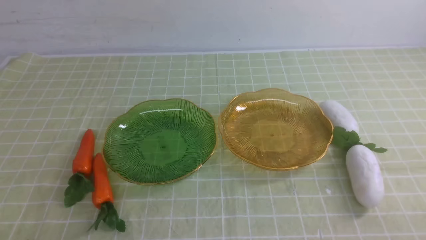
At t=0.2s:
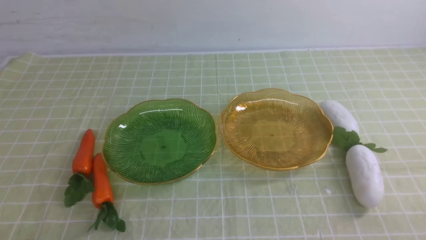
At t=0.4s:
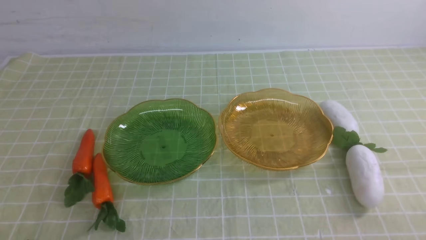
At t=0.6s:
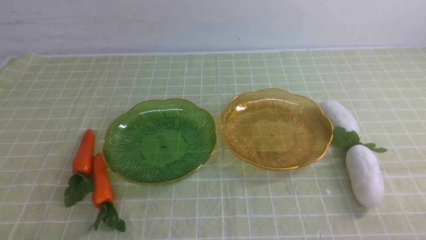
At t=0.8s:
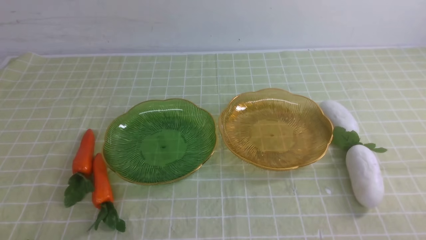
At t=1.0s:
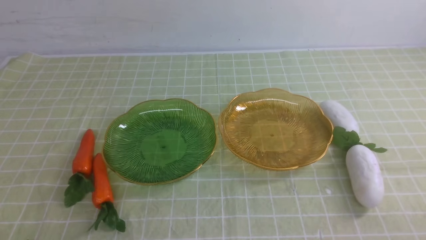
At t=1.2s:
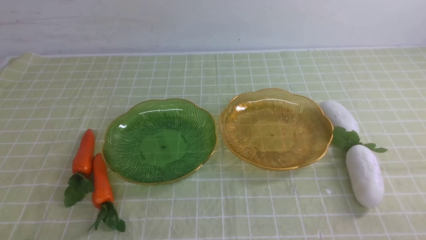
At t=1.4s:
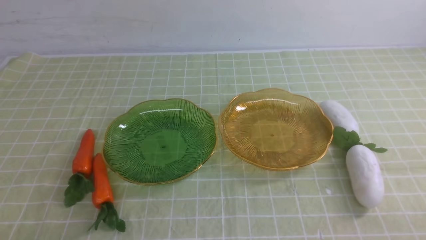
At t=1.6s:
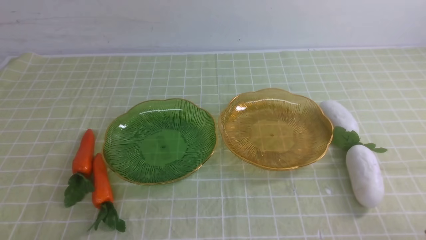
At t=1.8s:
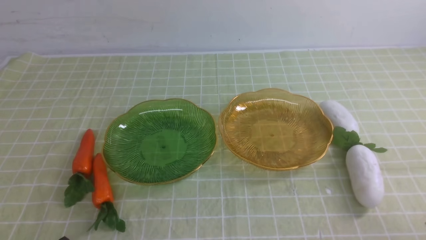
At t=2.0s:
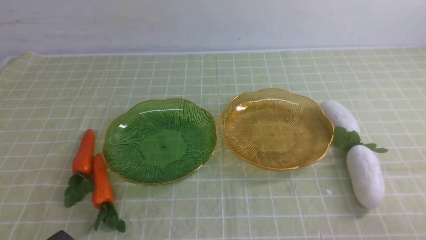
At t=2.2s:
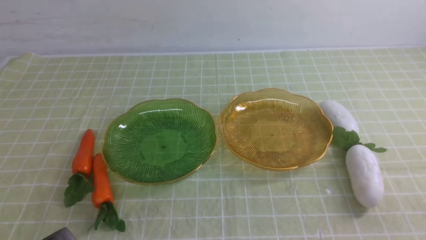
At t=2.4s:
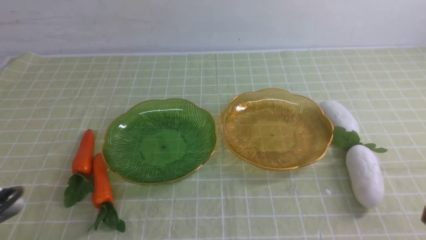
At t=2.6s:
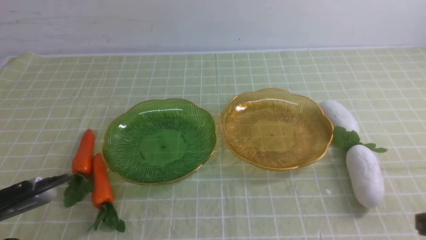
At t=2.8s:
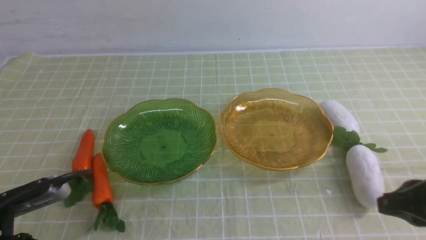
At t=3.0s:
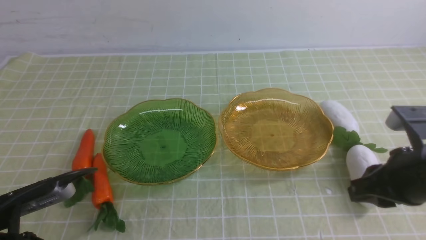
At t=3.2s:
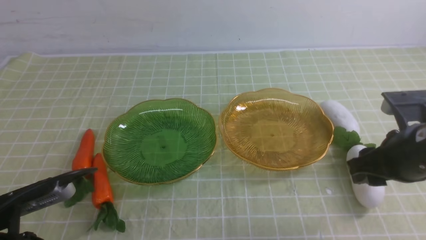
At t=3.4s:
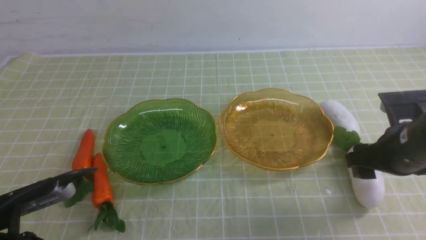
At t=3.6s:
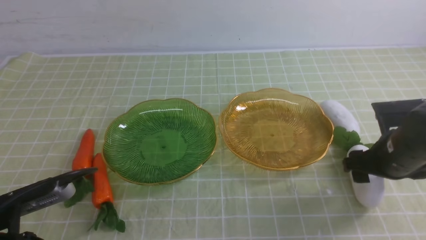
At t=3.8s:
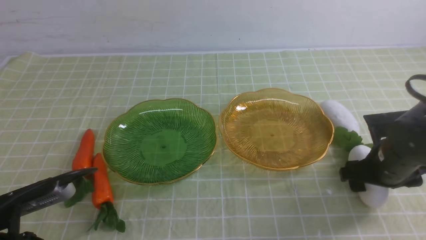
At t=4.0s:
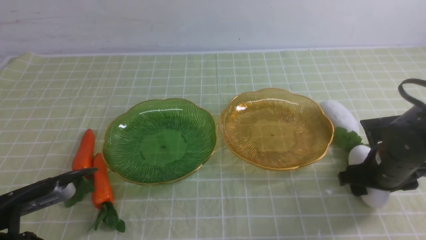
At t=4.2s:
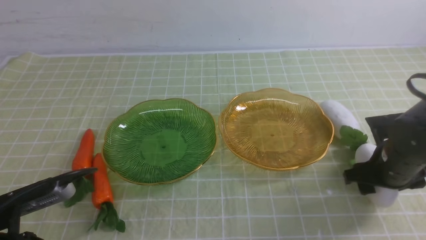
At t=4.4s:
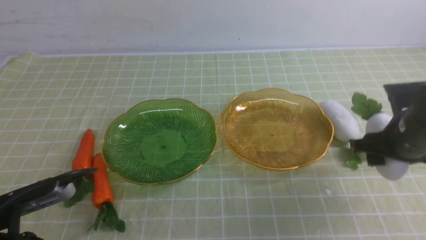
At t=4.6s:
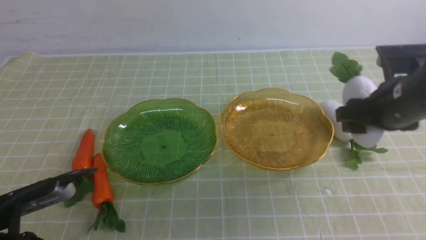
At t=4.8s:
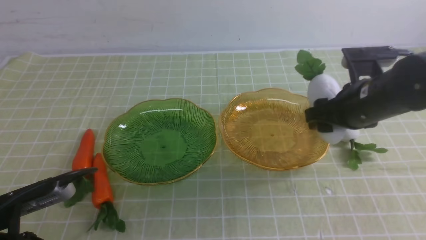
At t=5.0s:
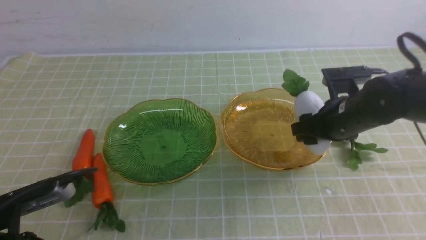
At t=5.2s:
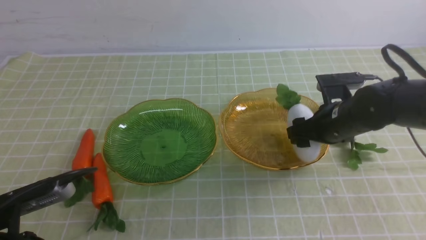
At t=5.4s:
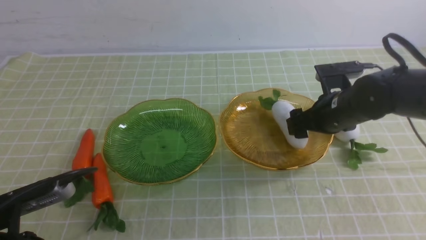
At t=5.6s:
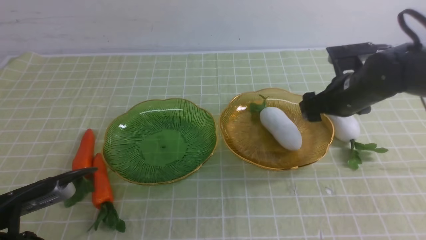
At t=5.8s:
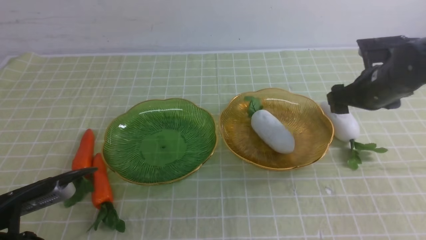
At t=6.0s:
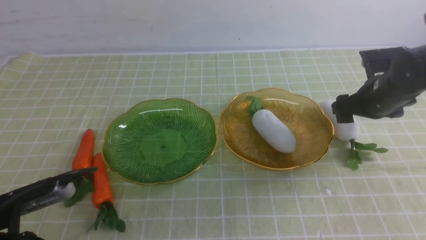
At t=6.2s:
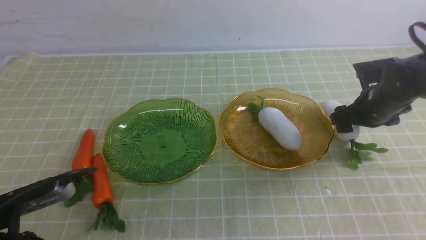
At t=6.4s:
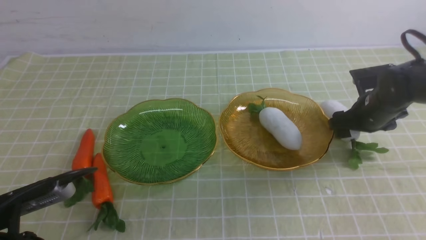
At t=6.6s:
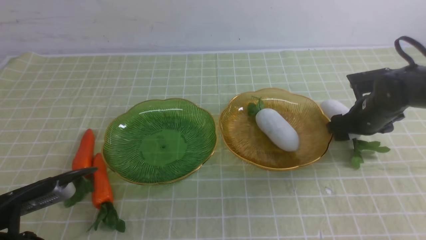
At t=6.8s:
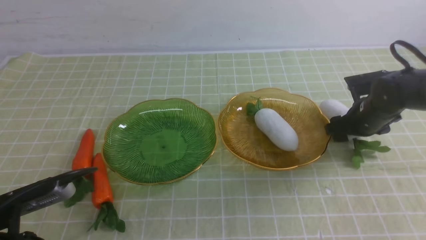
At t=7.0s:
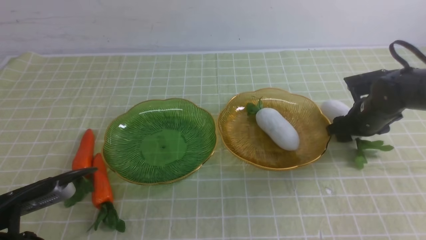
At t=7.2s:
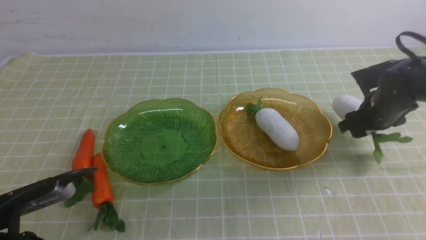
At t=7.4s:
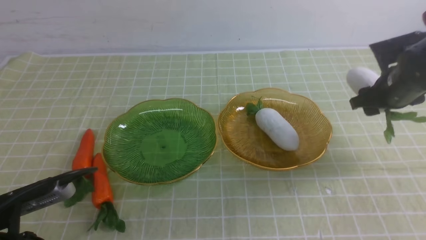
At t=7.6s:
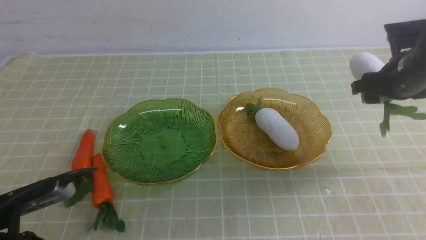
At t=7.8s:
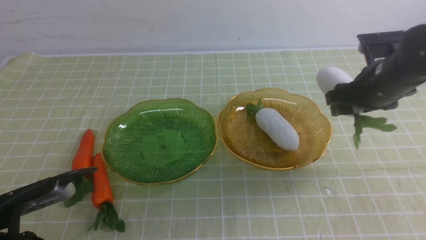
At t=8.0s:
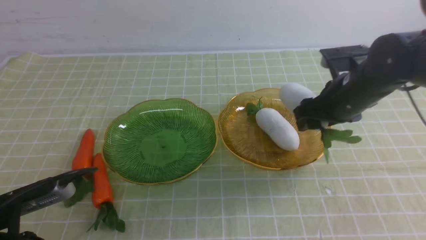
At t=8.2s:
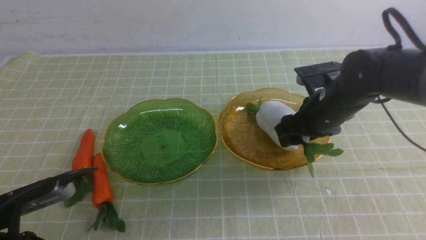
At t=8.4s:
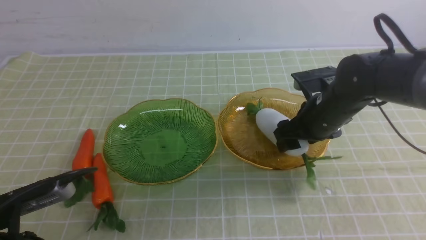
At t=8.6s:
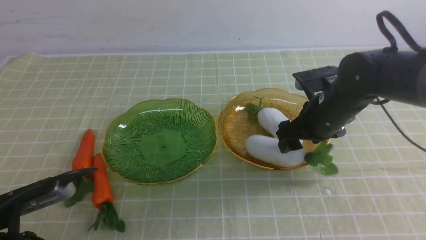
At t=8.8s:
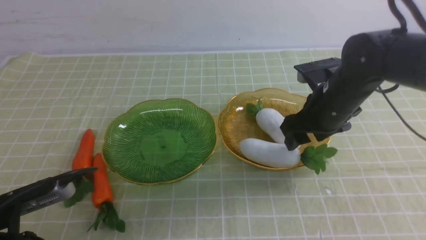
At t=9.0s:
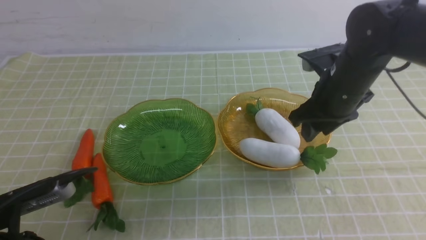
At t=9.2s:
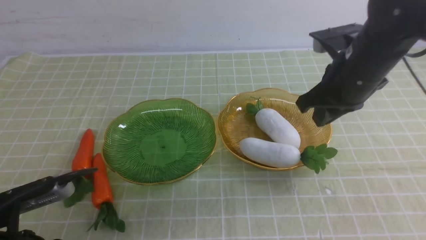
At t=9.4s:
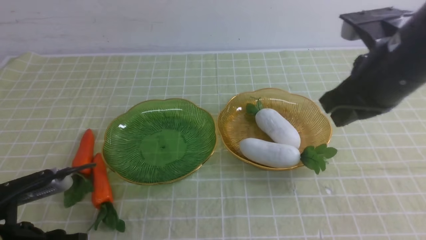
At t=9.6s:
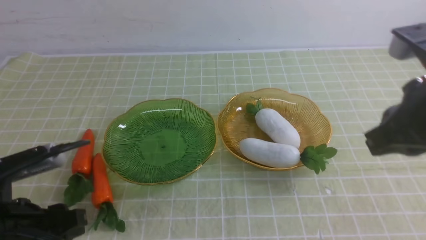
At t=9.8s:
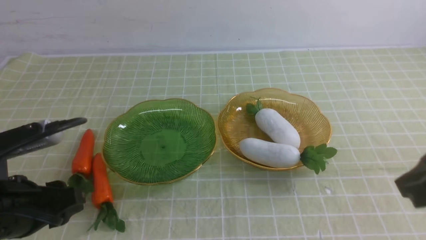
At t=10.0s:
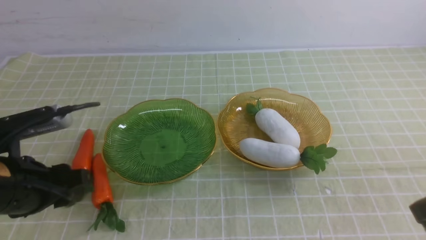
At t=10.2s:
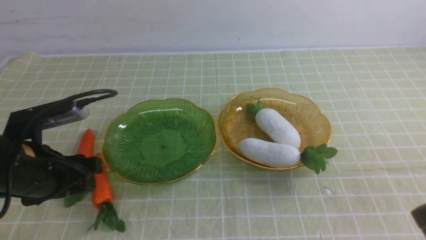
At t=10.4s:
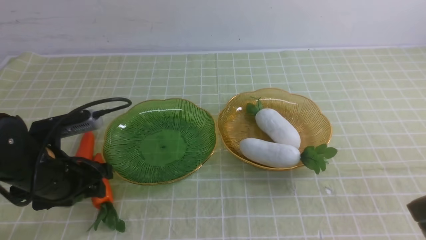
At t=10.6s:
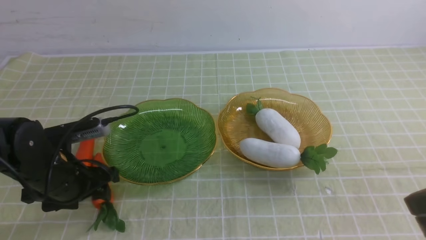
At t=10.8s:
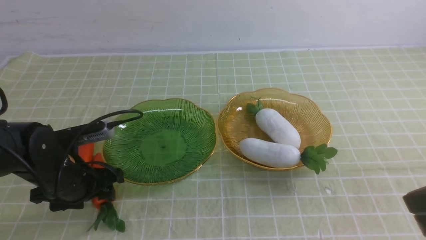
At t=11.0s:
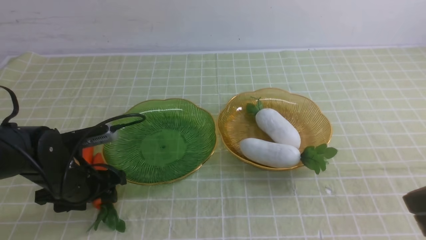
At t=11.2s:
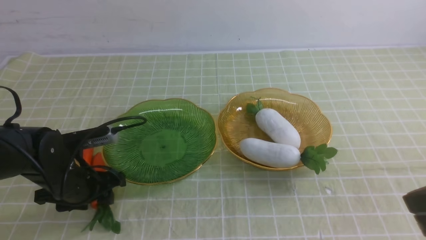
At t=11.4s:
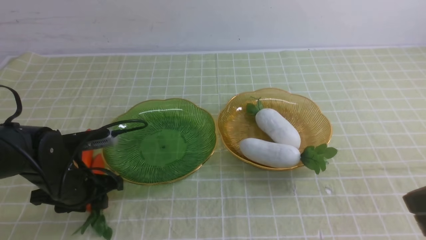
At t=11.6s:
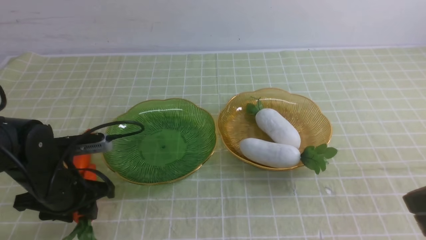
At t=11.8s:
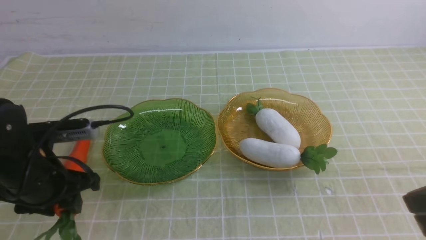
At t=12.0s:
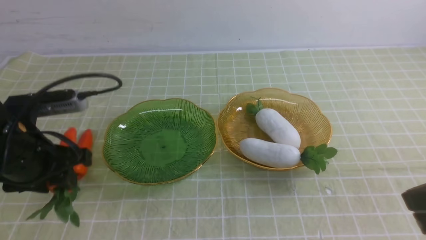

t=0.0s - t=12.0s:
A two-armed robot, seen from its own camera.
Step, t=0.0s - t=5.4s: use the right arm to grab a radish and put it into the right plate.
Step, t=5.8s - t=8.4s: use the right arm to grab a radish and put it into the right plate.
t=1.6s - t=3.0s: The left gripper shifts roughly 5 cm forward. Meanwhile the right gripper goes roughly 15 cm forward and upward.
t=3.0s - t=4.4s: The right gripper goes roughly 10 cm forward, travels downward and back again, some 10 cm each way, and opens.
t=4.4s - t=6.0s: The right gripper travels forward by some 10 cm.
t=6.0s - t=7.6s: The right gripper heads upward, covering approximately 5 cm.
t=7.6s - t=9.0s: The right gripper moves to the left, approximately 10 cm.
t=9.0s - t=10.4s: The left gripper moves forward, some 10 cm, and opens up. The right gripper heads backward, covering approximately 20 cm, and closes its fingers.
t=10.4s - t=12.0s: The left gripper moves upward, roughly 5 cm.

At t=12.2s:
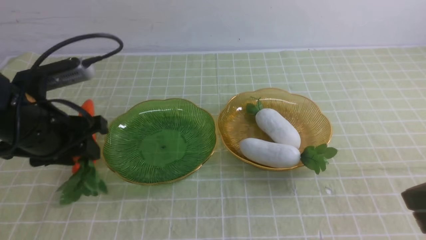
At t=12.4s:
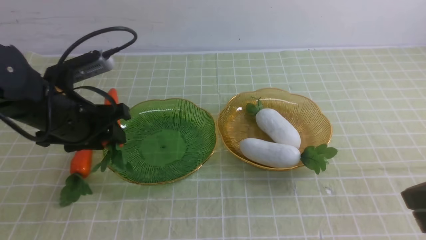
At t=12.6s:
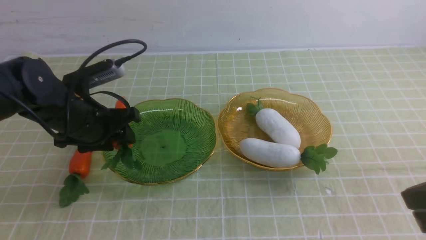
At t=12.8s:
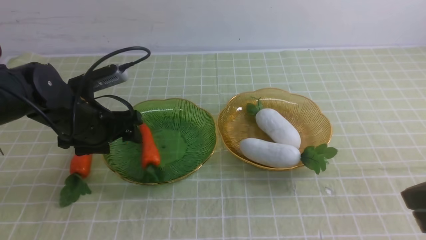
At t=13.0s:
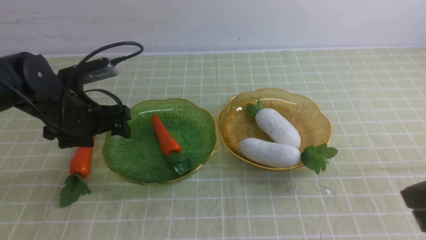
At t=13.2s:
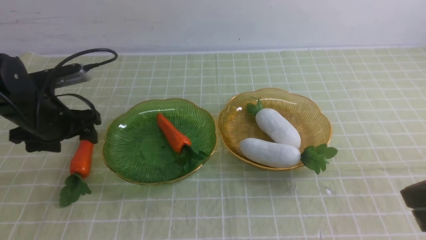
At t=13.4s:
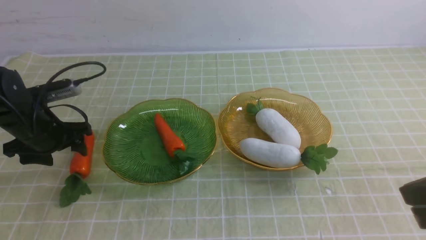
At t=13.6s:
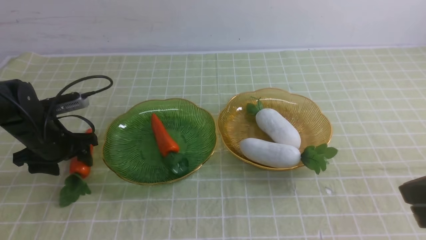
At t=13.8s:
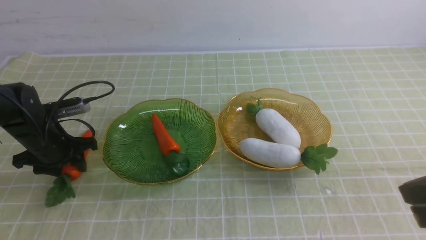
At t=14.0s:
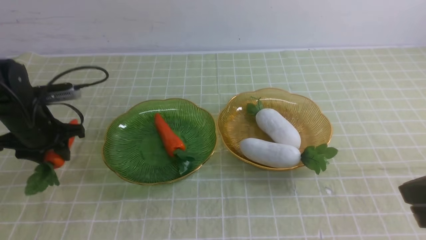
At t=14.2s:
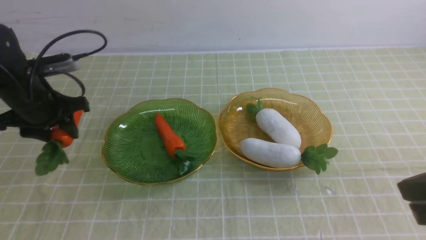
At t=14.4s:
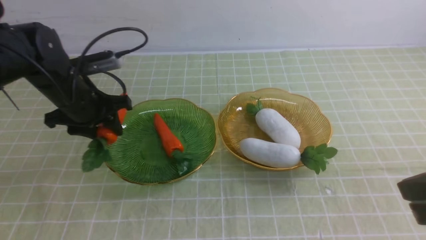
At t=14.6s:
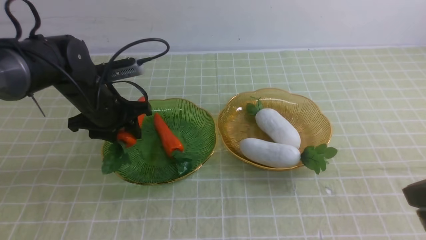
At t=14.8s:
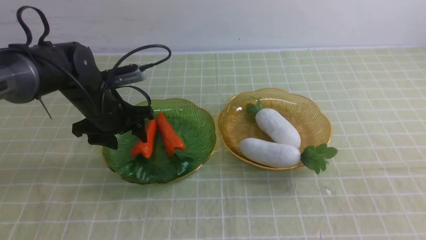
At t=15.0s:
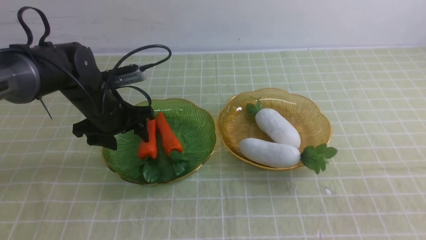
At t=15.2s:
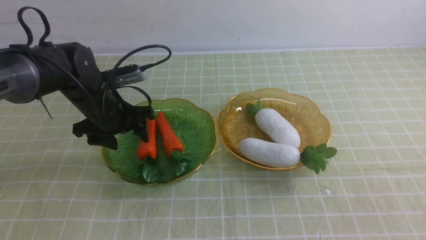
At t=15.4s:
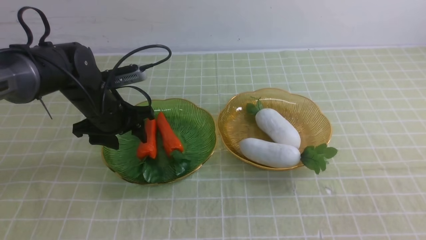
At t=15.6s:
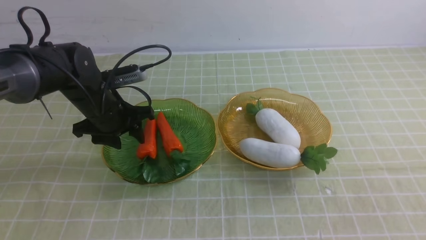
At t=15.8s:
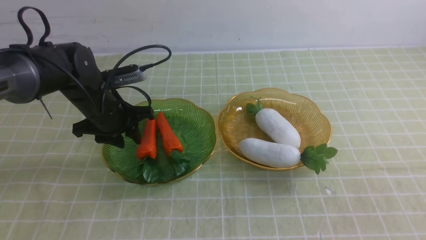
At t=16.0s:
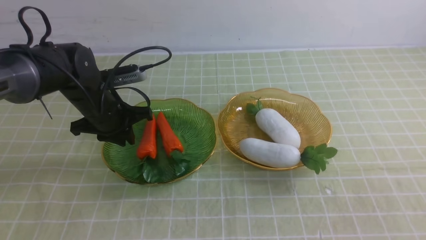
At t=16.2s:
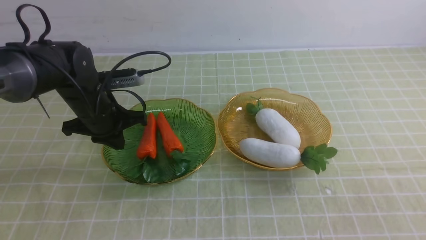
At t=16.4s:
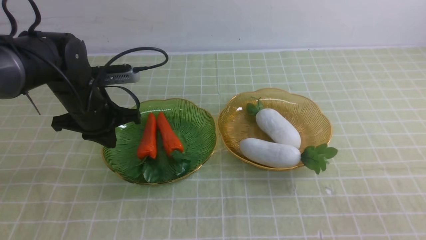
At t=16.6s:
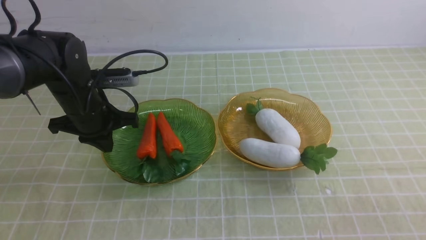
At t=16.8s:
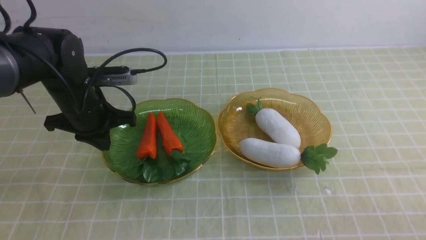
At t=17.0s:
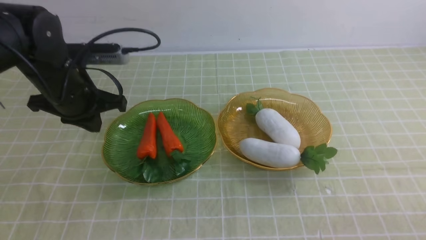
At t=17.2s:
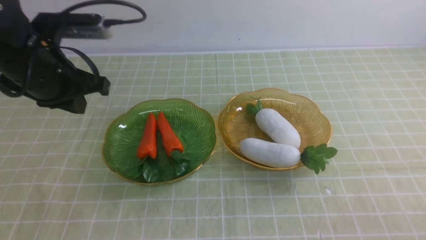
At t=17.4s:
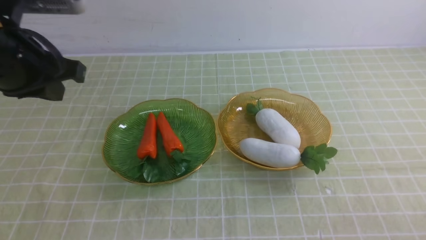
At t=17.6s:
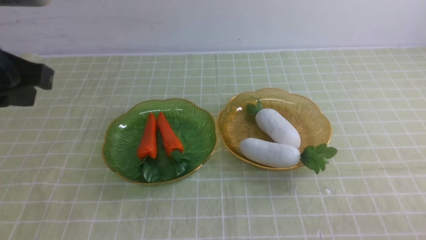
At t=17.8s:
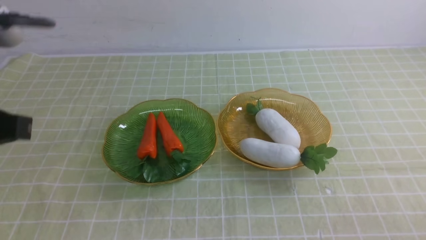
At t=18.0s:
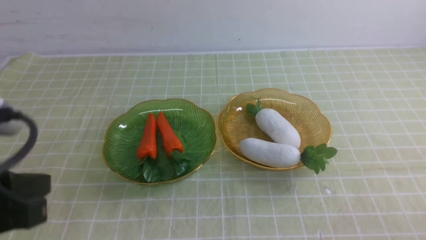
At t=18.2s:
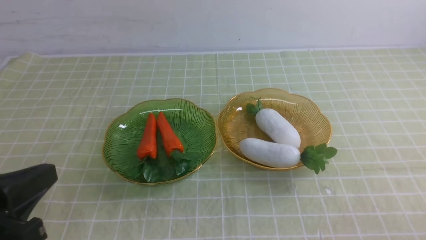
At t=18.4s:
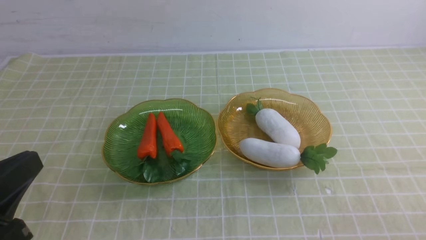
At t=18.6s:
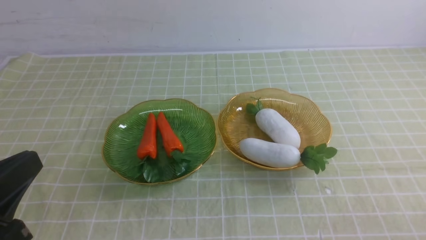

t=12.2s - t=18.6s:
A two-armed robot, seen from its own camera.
Step, t=12.2s - t=15.0s: use the left arm to grab a carrot and put it into the left plate.
t=12.2s - t=13.8s: The left gripper shifts approximately 15 cm downward, forward and to the left.
t=13.8s - t=15.4s: The left gripper heads to the right, covering about 10 cm. Meanwhile the right gripper travels backward by approximately 10 cm.
t=15.4s - t=17.0s: The right gripper is displaced downward by about 15 cm. Meanwhile the left gripper moves upward, about 10 cm, and closes its fingers.
t=17.0s - t=18.6s: The left gripper moves backward, roughly 25 cm.
